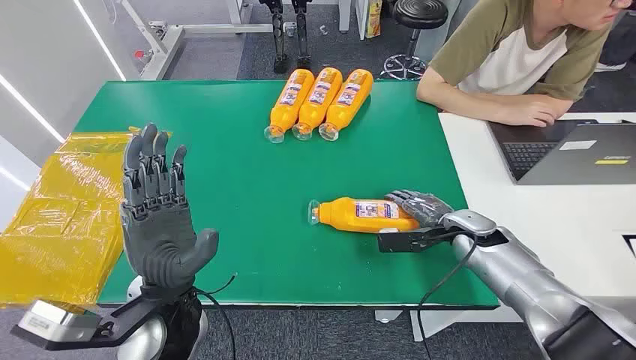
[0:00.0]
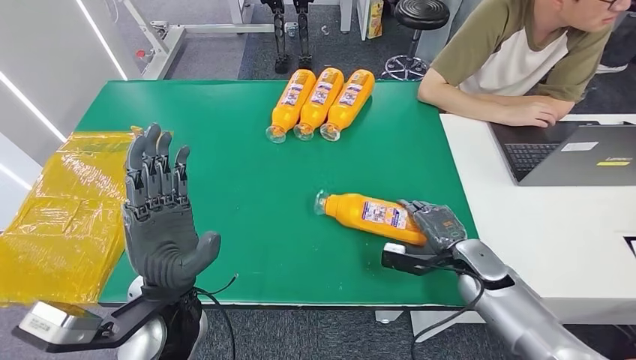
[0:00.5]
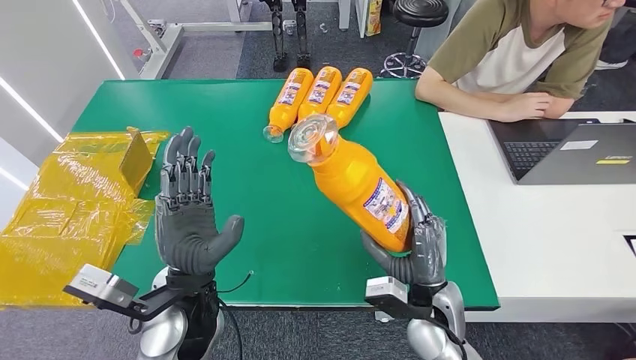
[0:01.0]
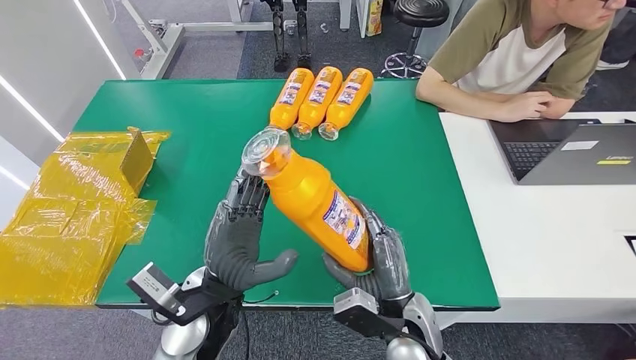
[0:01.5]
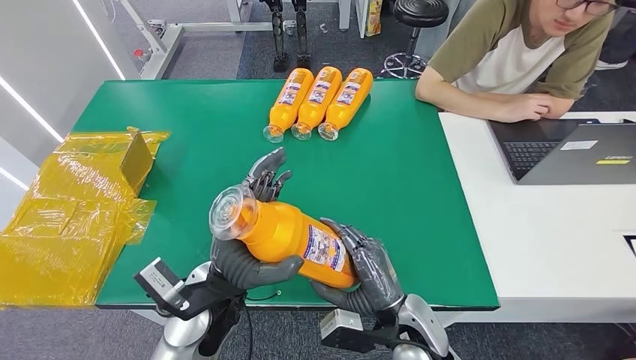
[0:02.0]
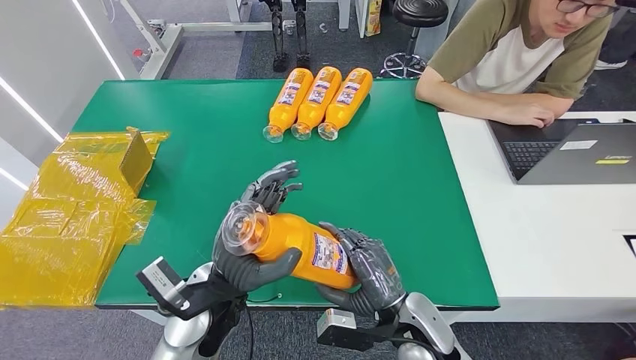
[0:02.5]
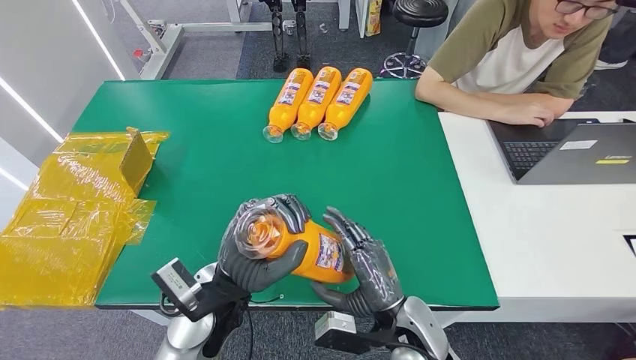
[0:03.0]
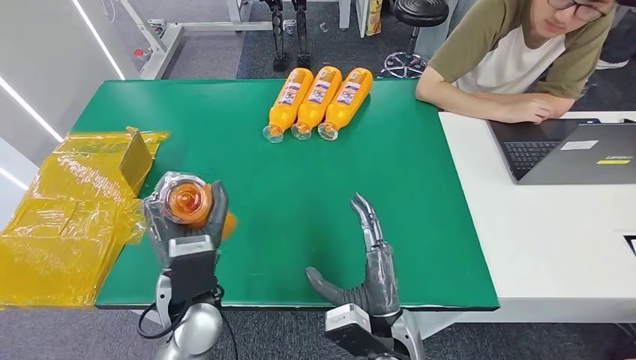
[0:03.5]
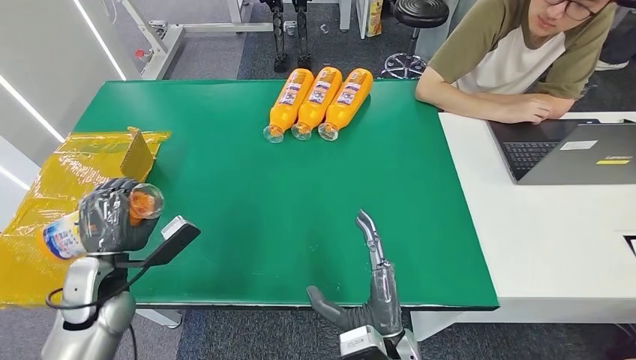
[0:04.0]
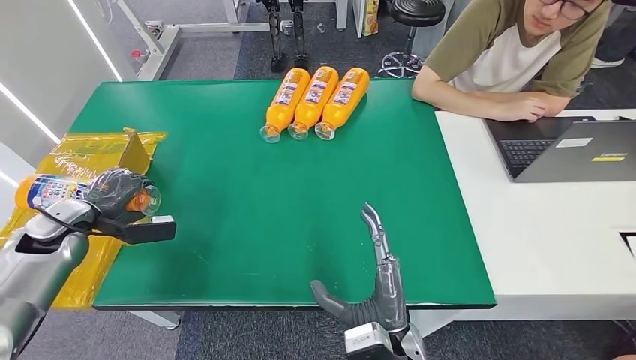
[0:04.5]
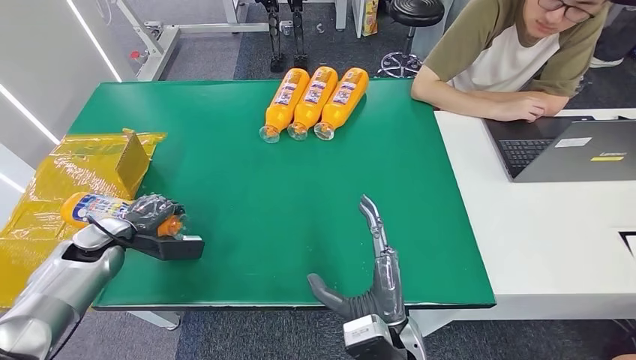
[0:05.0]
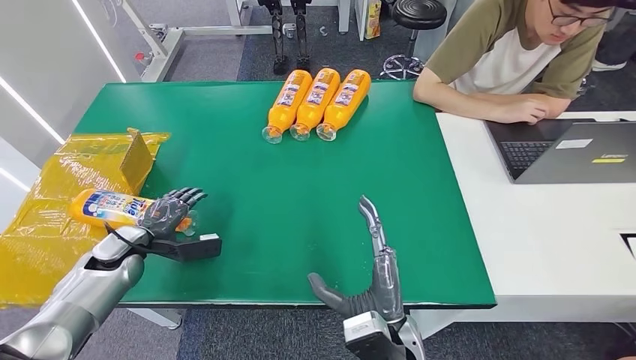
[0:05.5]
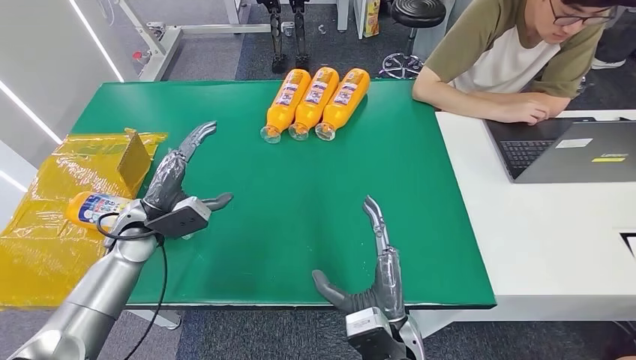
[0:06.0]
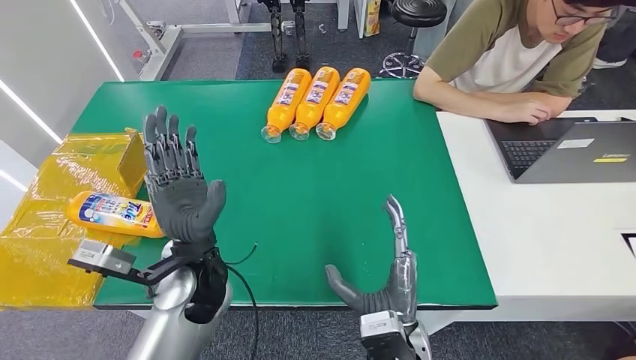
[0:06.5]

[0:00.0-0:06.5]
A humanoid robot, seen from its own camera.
Step, 0:00.0 to 0:01.5: Pick up the bottle from the table.
Step, 0:02.0 to 0:06.5: Turn the bottle to the front side.
0:04.5 to 0:06.5: The left hand goes approximately 35 cm to the right.
